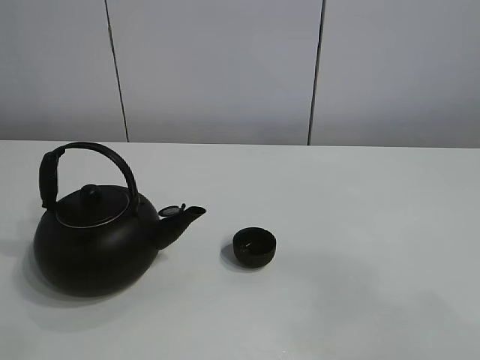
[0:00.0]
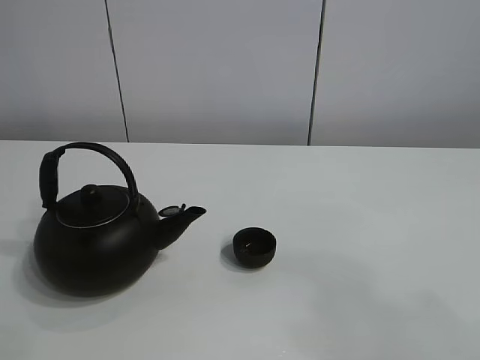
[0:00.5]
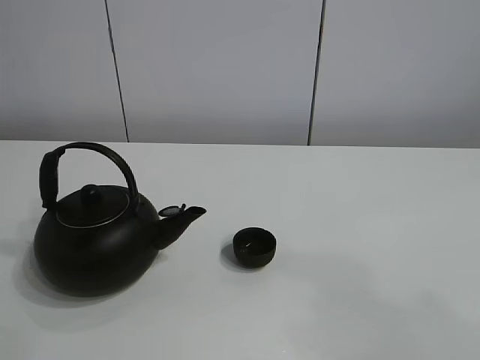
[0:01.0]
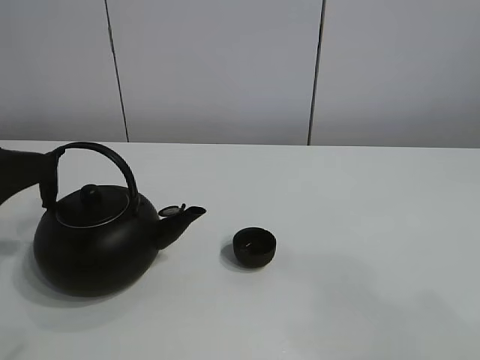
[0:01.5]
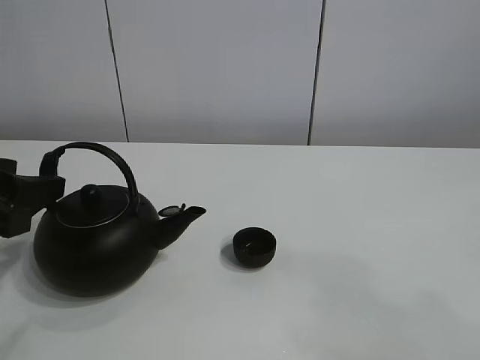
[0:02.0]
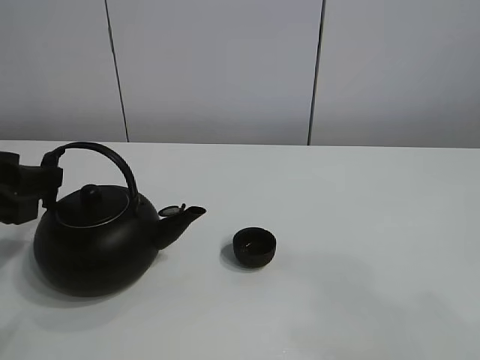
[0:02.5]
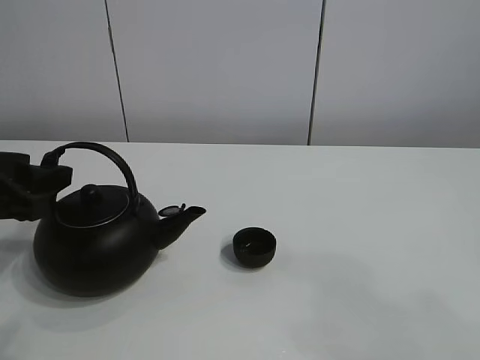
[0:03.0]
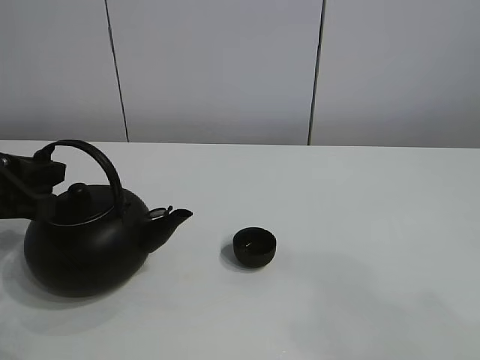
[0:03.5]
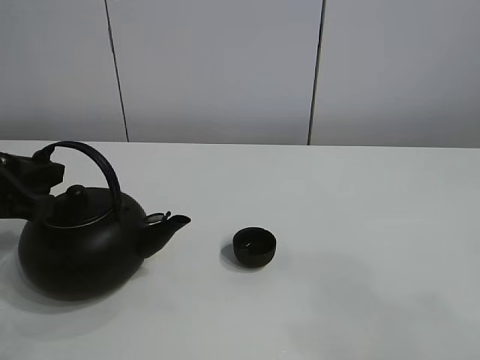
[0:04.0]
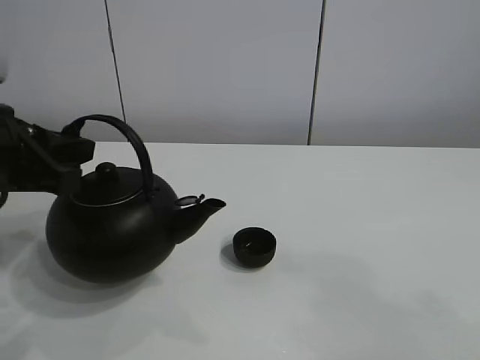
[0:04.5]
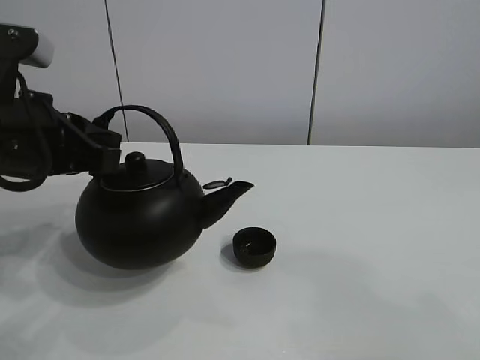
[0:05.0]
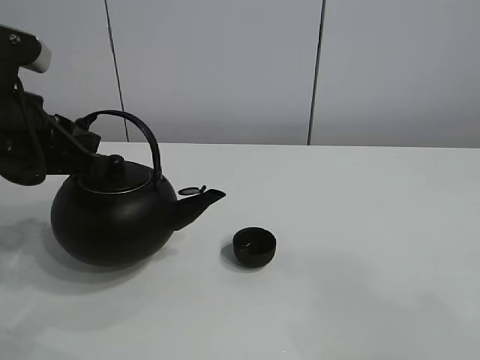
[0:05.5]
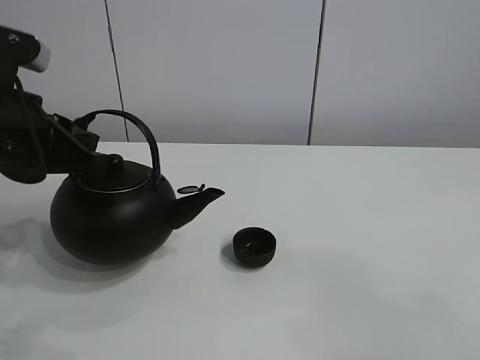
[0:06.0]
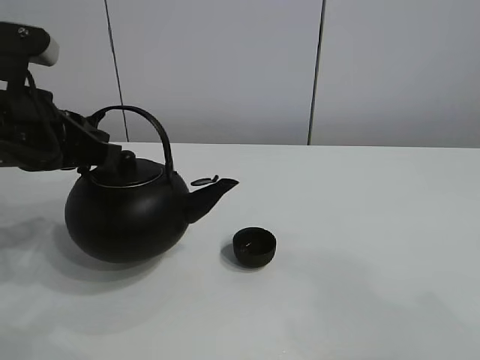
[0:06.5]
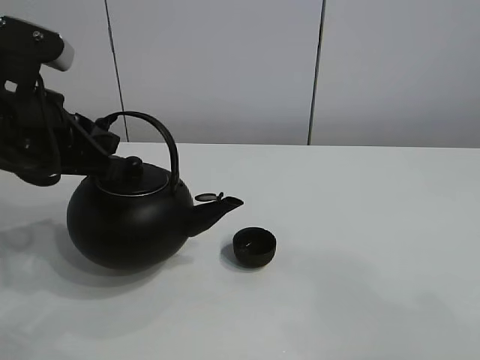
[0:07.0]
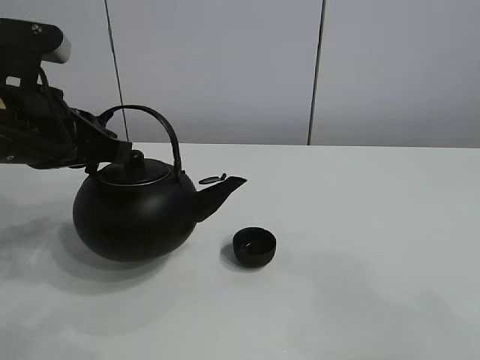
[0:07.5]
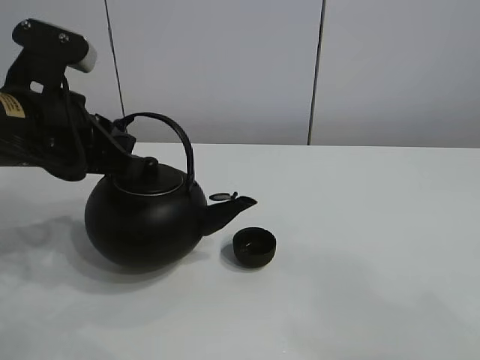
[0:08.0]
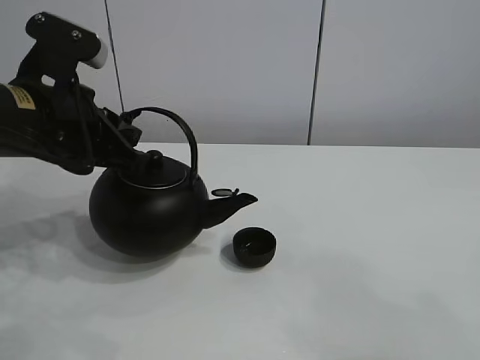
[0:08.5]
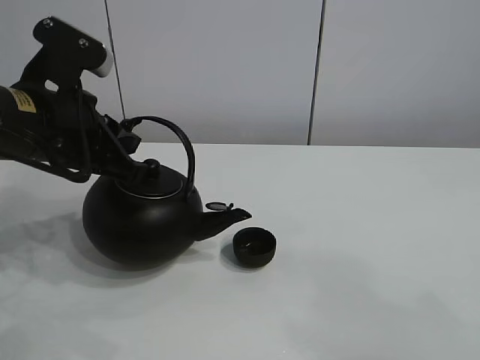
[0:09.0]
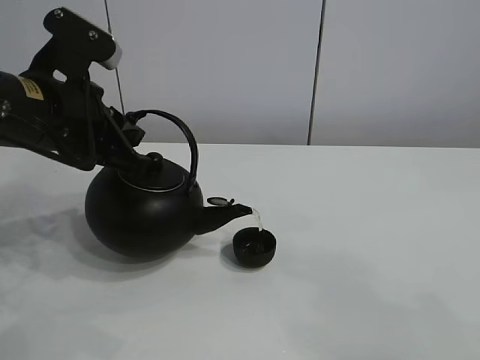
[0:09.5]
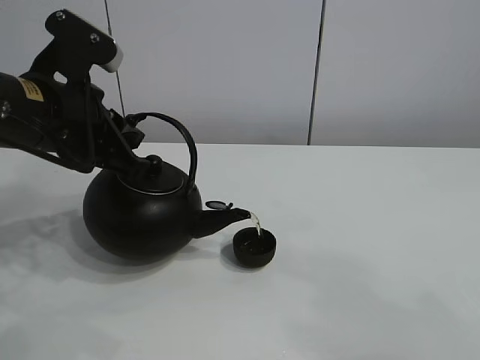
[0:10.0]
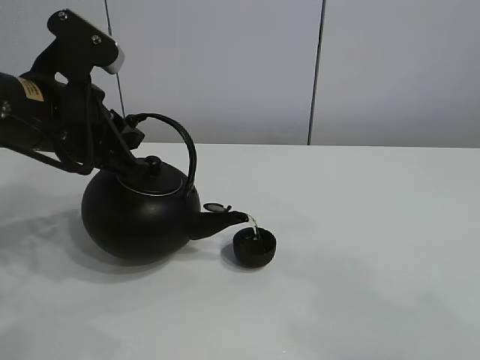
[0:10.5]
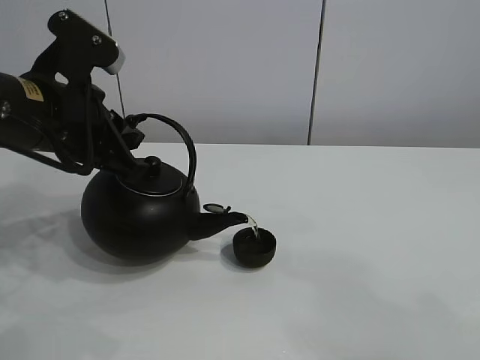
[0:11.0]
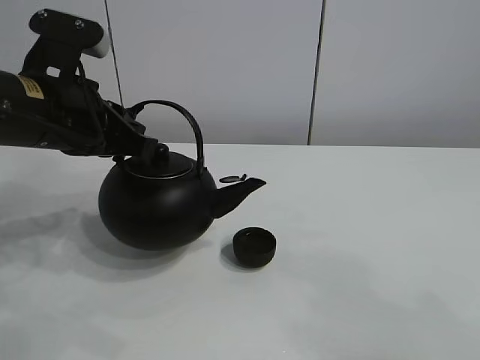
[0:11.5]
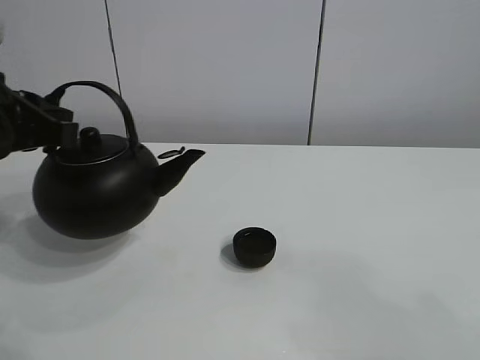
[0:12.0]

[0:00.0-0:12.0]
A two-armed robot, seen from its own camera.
Task of the whole recording: pour tea into the teacup.
Step, 0:00.0 to 0:04.0: Pick up the teapot with the left gripper.
Step, 0:04.5 to 0:11.0: Pour tea into the teacup with the left gripper.
0:00.0 to 0:02.0: The left gripper goes some 30 cm downward.
0:02.0 to 0:04.0: The left gripper closes.
0:04.0 to 0:06.0: The left gripper shifts by approximately 5 cm.
0:06.0 to 0:10.0: The grippers make only small movements.
0:10.0 to 0:12.0: The left gripper shifts roughly 5 cm to the left.

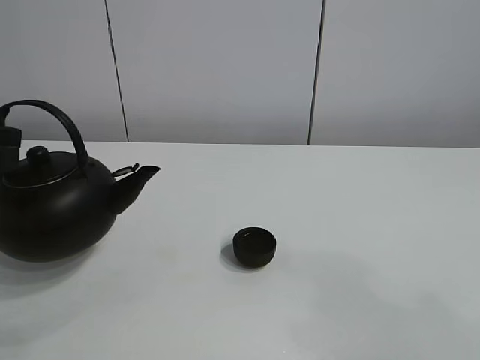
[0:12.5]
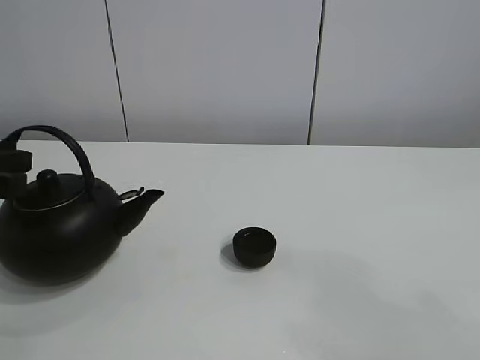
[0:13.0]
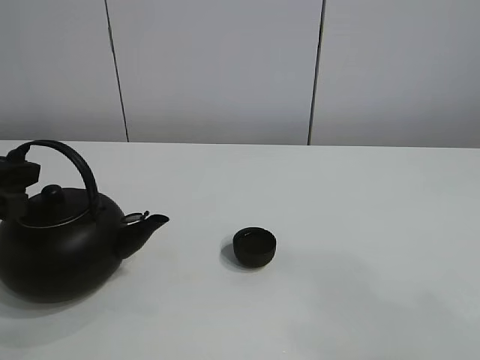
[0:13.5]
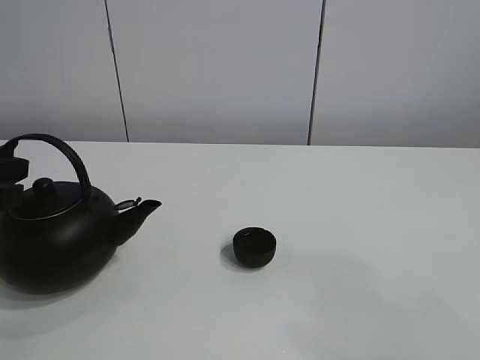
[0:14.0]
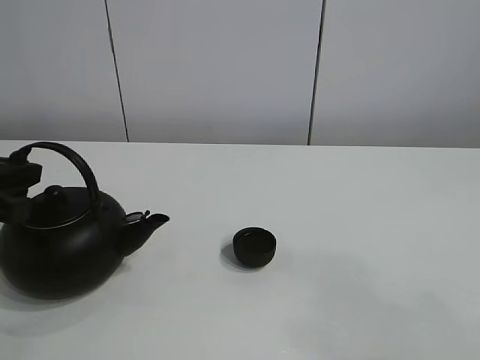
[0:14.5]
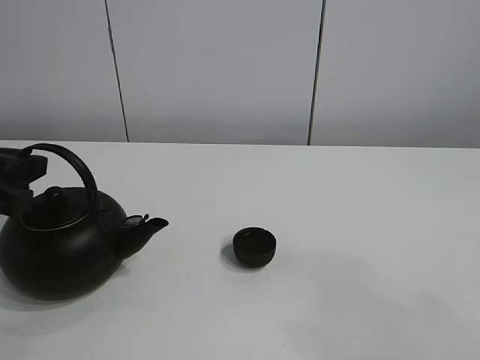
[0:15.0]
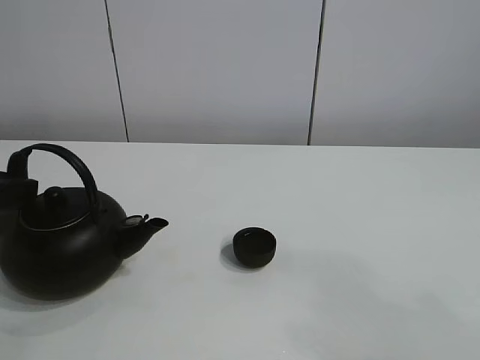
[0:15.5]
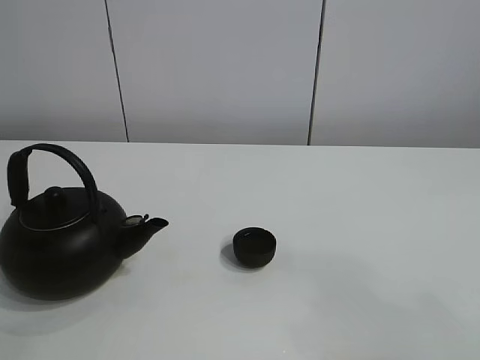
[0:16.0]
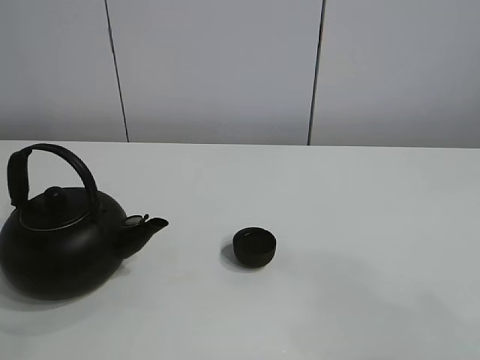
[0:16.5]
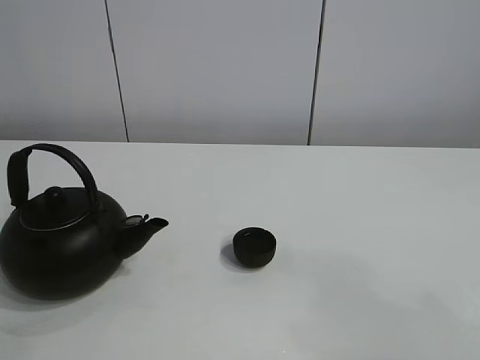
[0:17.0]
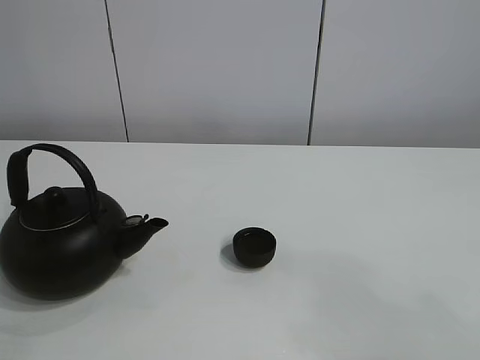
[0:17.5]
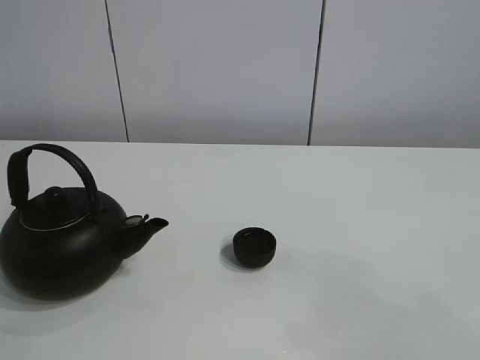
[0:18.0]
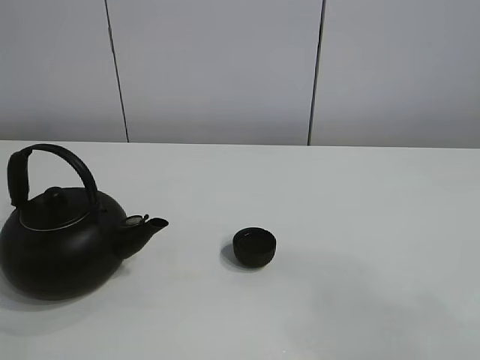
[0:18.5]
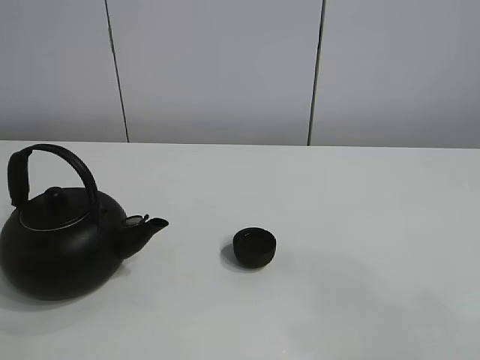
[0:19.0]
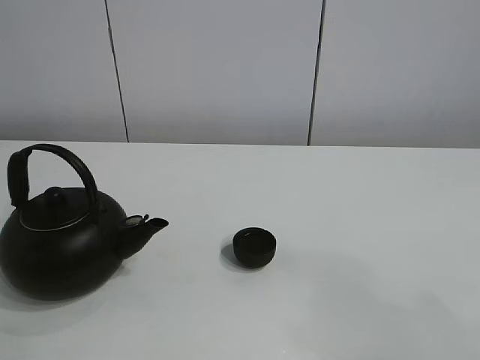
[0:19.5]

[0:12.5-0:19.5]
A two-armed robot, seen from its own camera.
Task of the whole recording: pour tea into the teacup.
0:12.5 to 0:14.5: There are only small adjustments of the grippers.
0:14.5 to 0:16.0: The left gripper shifts by some 5 cm, and opens its fingers.
